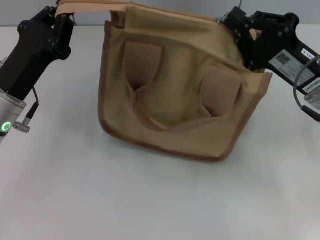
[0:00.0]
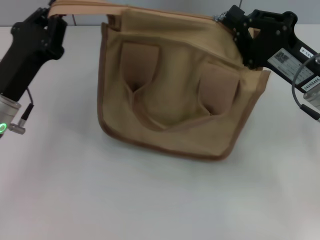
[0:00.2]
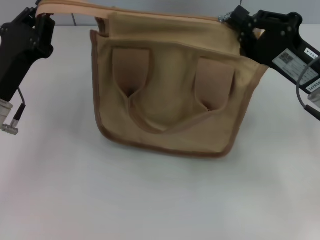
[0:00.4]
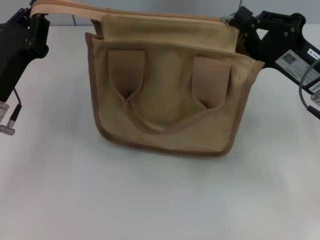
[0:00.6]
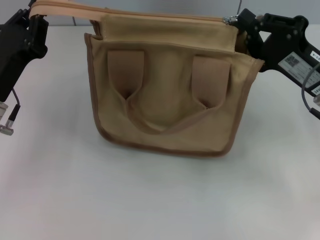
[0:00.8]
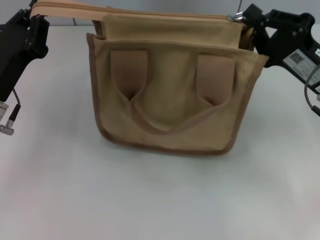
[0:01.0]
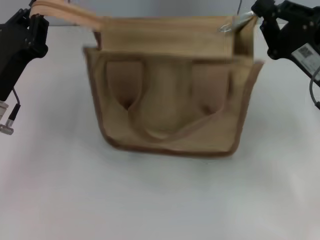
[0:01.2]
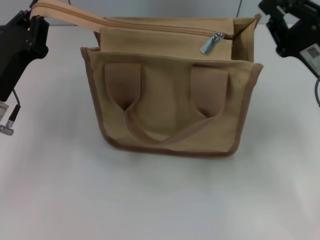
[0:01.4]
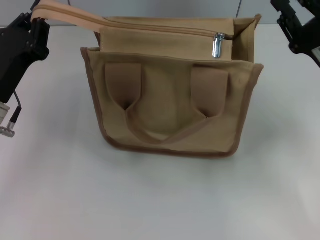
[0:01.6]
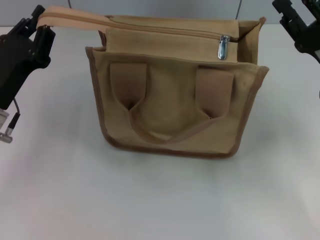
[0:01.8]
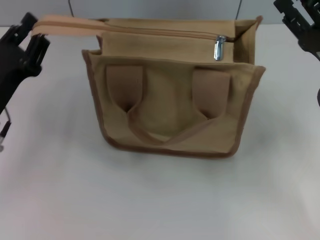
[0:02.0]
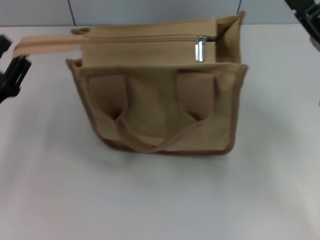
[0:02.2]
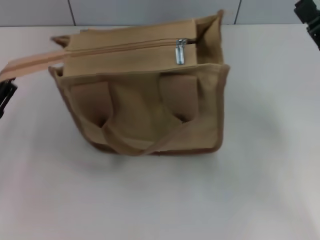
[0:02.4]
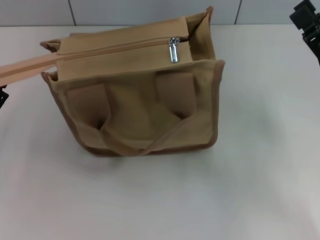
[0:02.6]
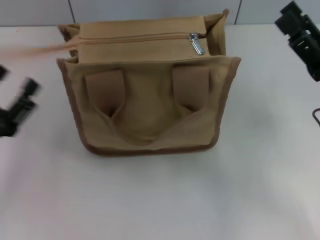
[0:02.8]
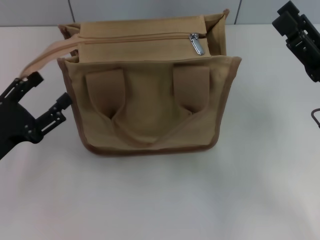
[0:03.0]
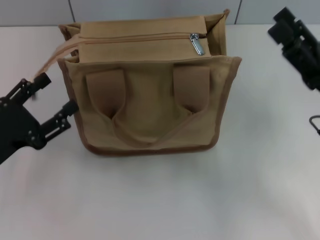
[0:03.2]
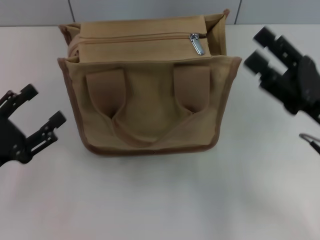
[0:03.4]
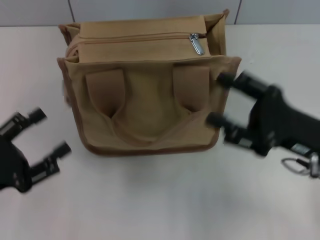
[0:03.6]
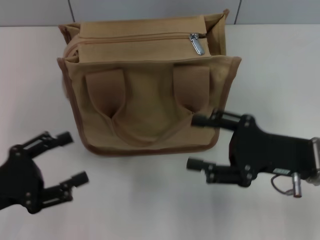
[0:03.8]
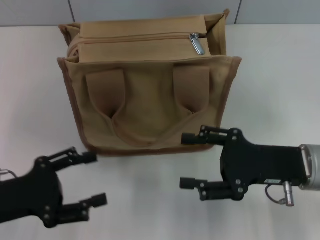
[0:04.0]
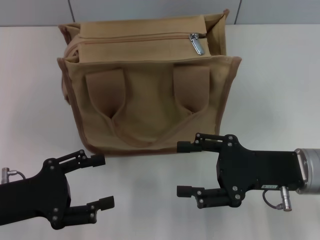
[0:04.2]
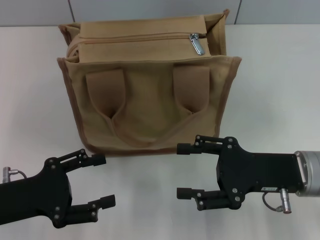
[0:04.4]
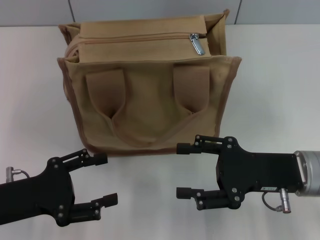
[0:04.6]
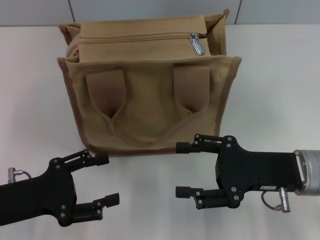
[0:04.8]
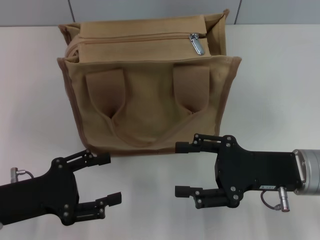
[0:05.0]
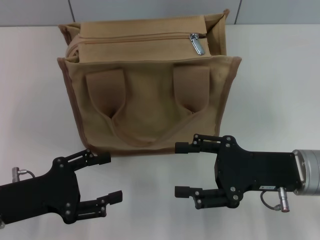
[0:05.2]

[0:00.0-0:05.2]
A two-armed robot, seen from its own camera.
Step, 0:01.4 to 0:03.2: Grab the zipper with your left hand.
0:00.0 to 0:01.8: The right gripper opens up.
0:01.8 to 0:03.4: The right gripper opens. Meanwhile the left gripper is displaced backward and to the left by some 10 cm, and opens up.
